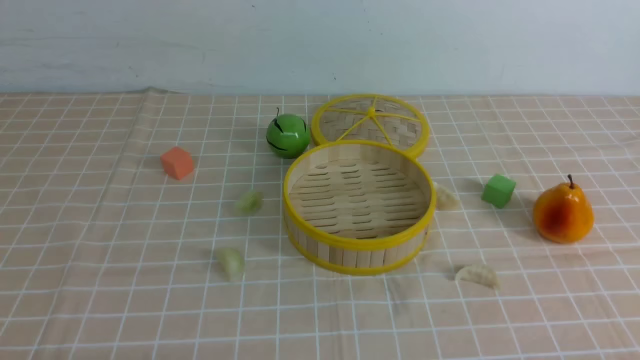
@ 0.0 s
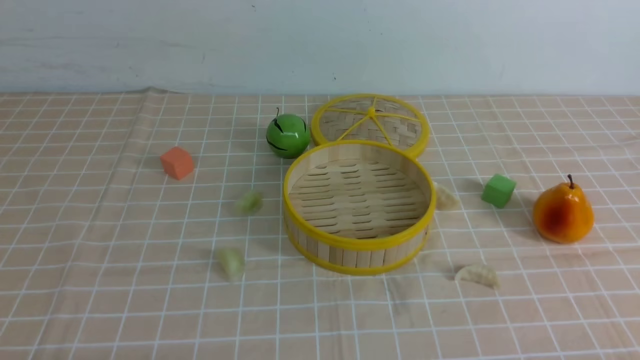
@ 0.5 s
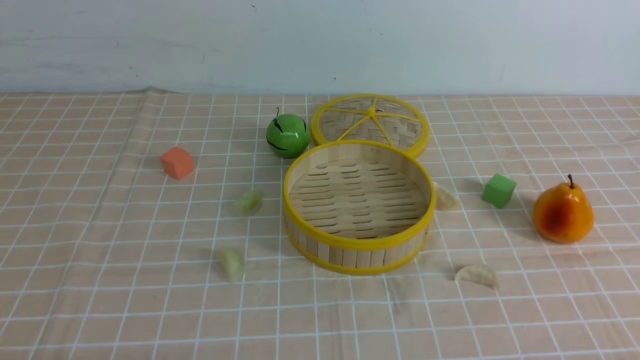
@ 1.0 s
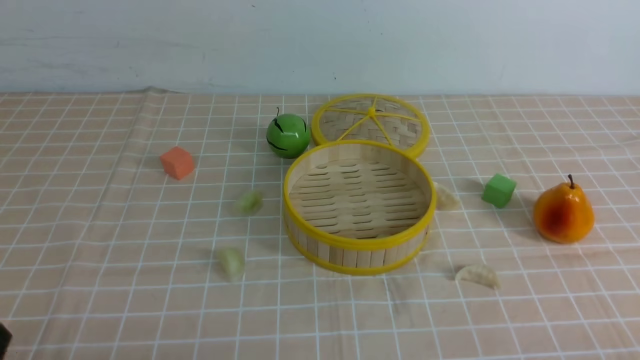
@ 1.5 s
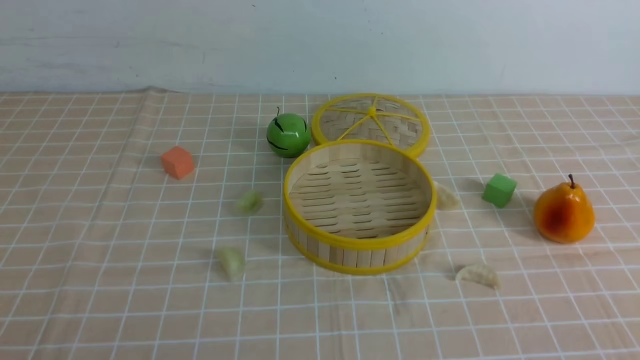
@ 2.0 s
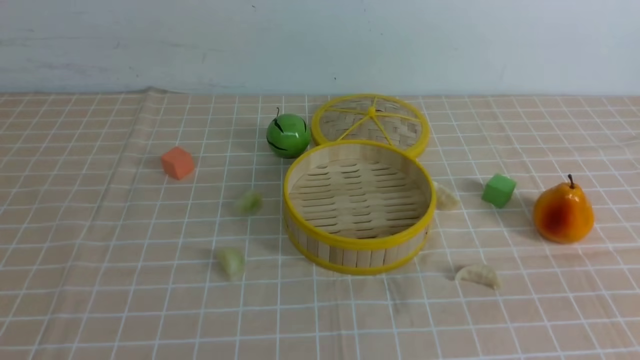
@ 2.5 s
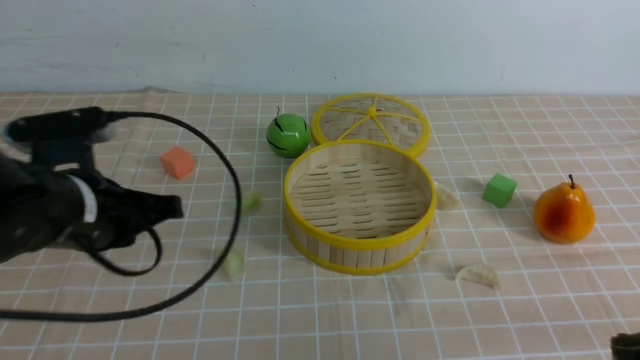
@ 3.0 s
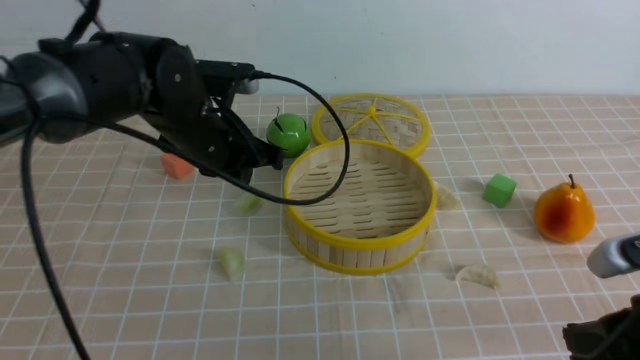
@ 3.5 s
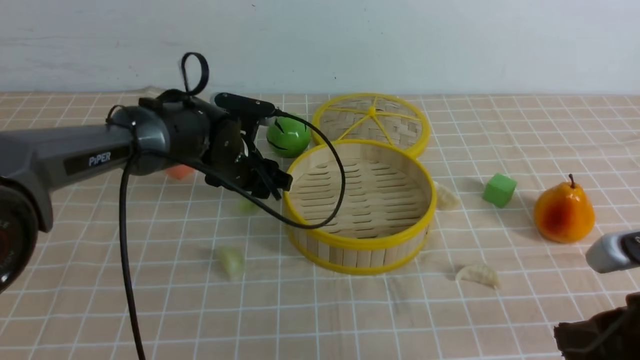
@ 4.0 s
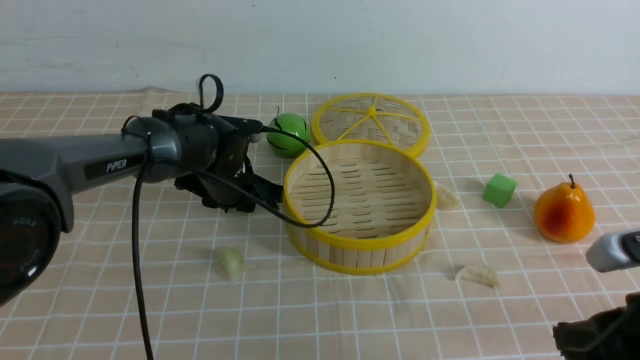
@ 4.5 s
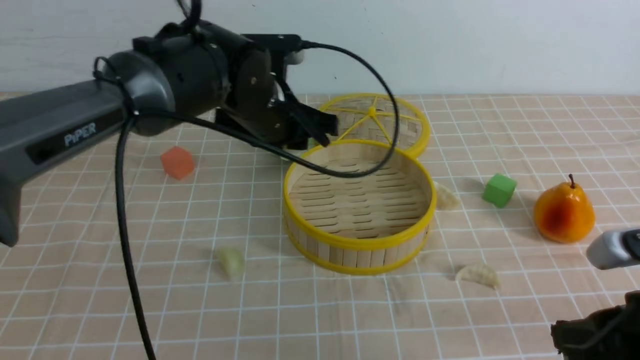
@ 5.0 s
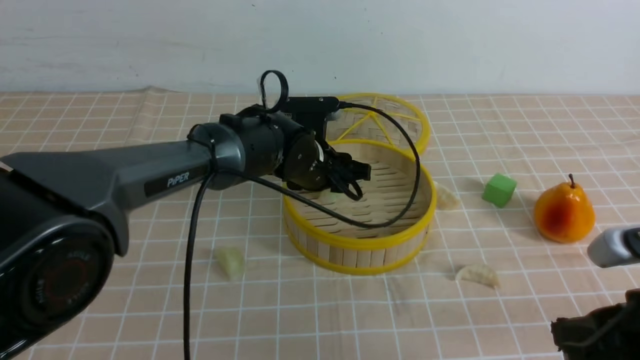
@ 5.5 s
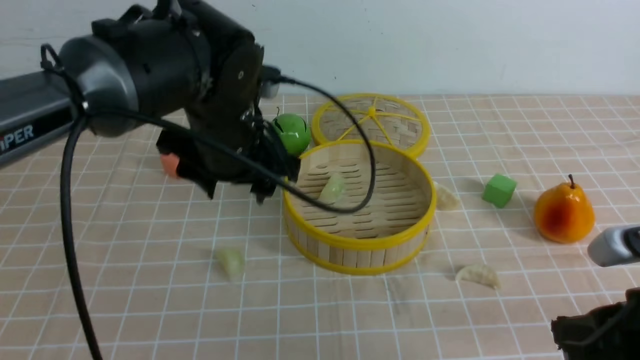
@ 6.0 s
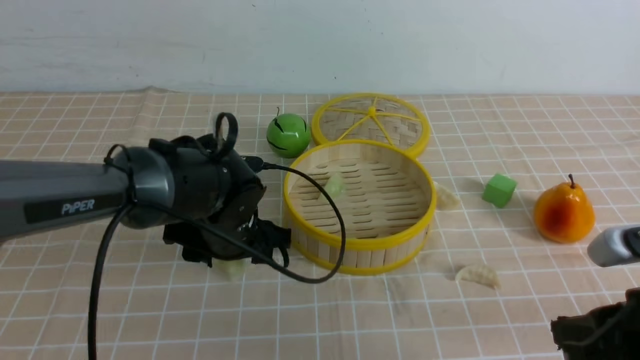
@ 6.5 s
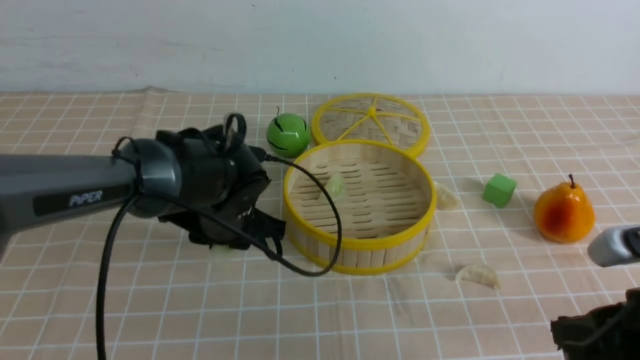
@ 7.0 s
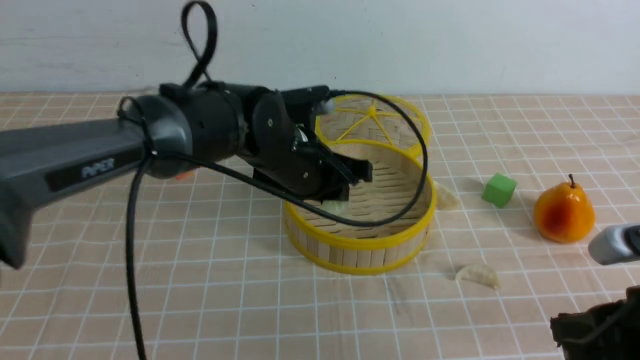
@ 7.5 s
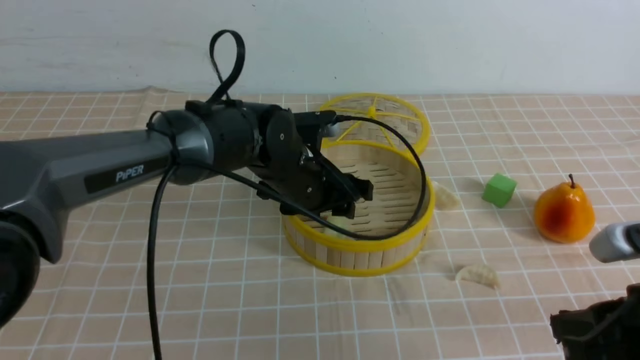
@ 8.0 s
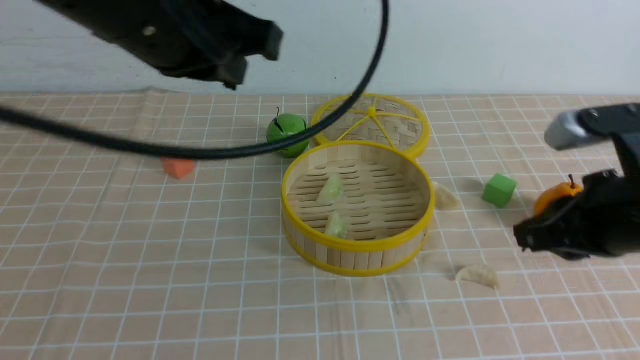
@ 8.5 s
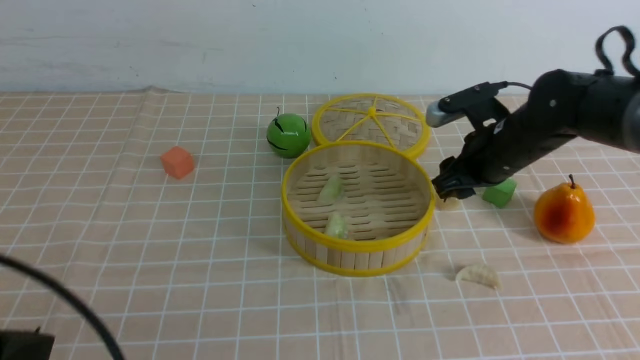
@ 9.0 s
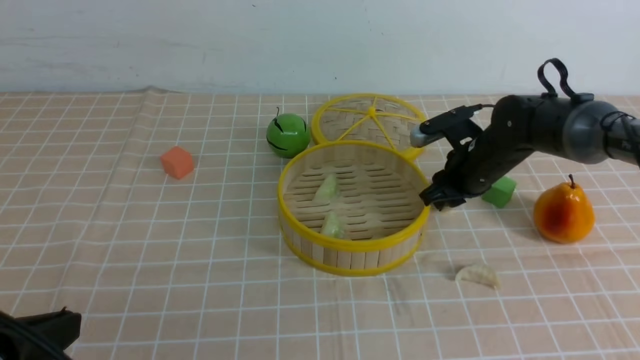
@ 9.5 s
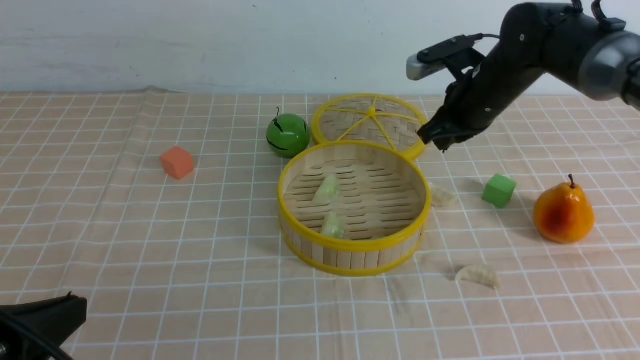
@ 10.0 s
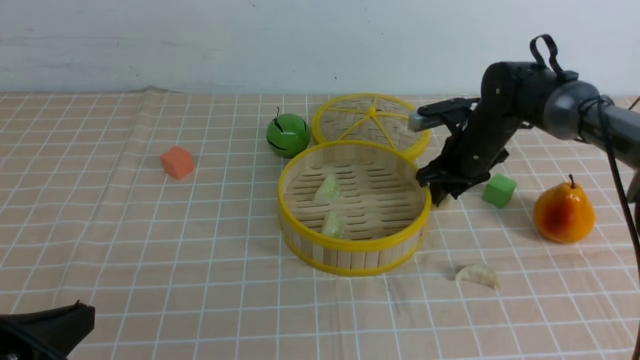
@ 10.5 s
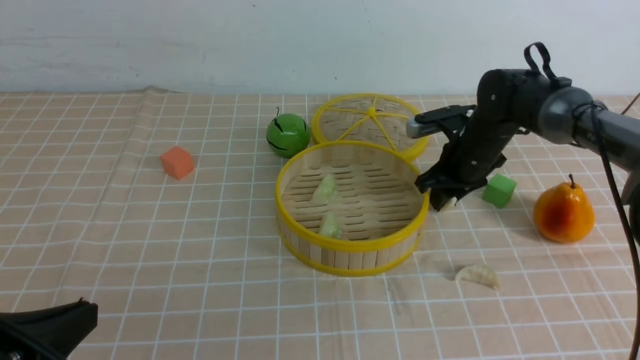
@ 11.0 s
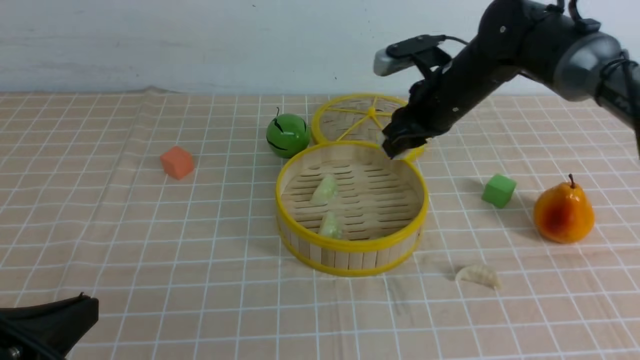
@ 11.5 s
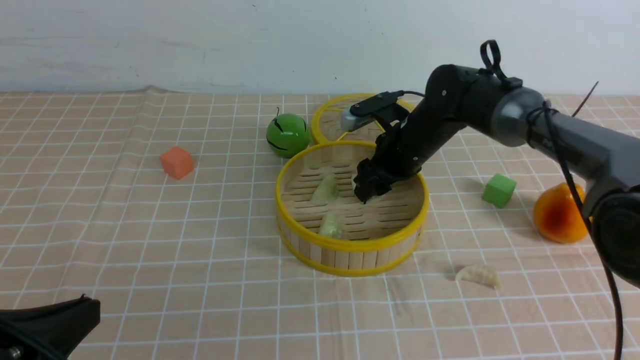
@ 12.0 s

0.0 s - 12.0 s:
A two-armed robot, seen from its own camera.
Task of the whole recording: put the dumplings into the steamer on the table with the brown tablecloth.
Step, 0.0 s - 4.0 s: use the left arm to grab a dumpling.
Step, 4.5 s - 5.5 s: use the left arm to put the dumpling into the steamer.
Step, 6.0 s - 6.5 s: use the left arm to grab a dumpling.
Step, 7.0 s - 8.0 s: use the left arm to put the dumpling into the steamer.
Step, 8.5 s - 10.5 s: use the right arm to grab a dumpling.
2.0 s - 4.0 s: The left gripper travels forward by approximately 40 cm, and opens up. Meanwhile the right gripper heads forward and to the left, covering roughly 15 cm.
4.0 s - 6.0 s: The left gripper goes approximately 10 cm backward and upward, and goes to the right and returns, some 10 cm each way.
6.0 s - 8.0 s: The left gripper moves about 10 cm downward and comes back.
8.0 s - 10.0 s: The right gripper heads forward, covering about 30 cm, and opens and closes again; the left gripper is displaced backward and to the left by some 35 cm, and closes.
10.0 s - 12.0 s: The right gripper goes about 5 cm to the left, and opens its fingers.

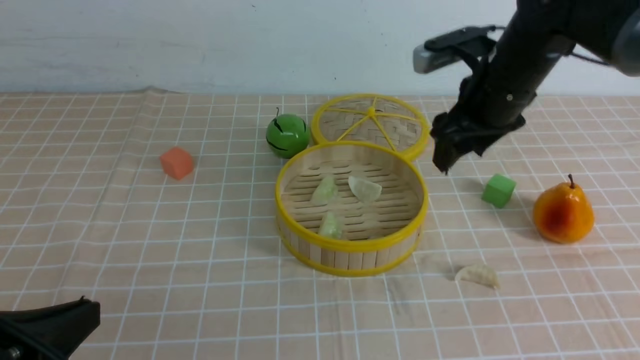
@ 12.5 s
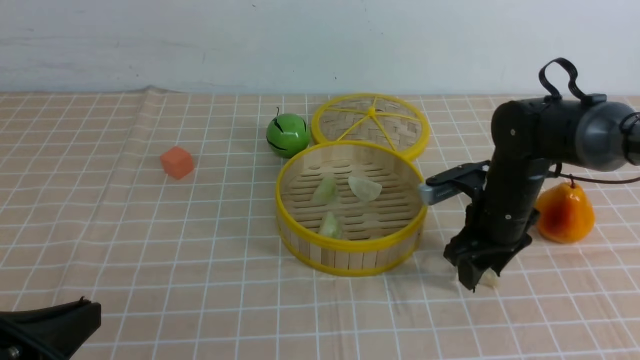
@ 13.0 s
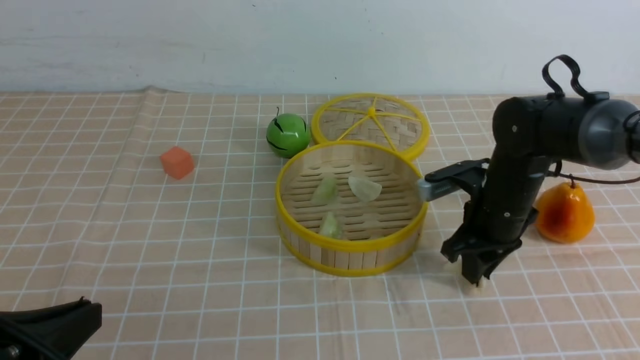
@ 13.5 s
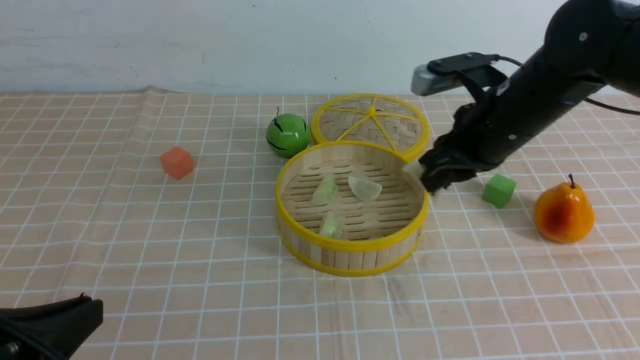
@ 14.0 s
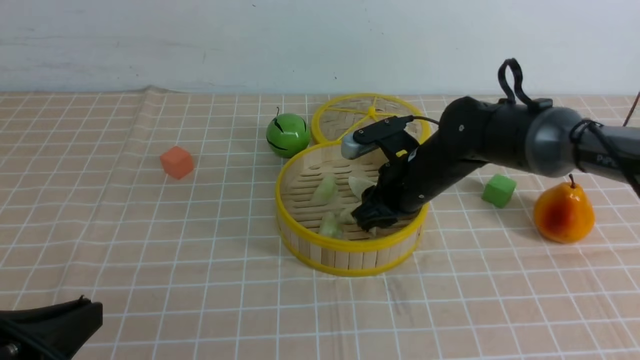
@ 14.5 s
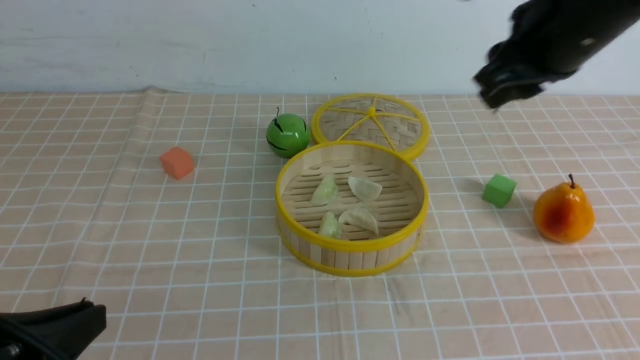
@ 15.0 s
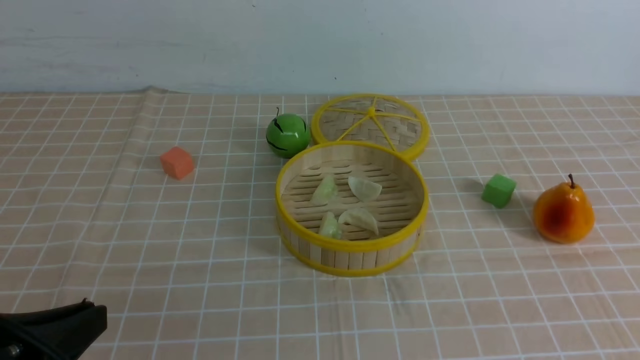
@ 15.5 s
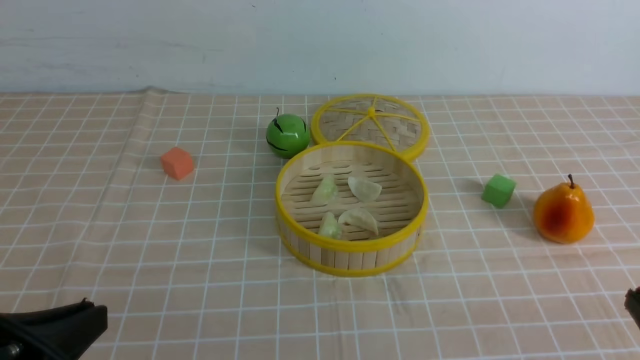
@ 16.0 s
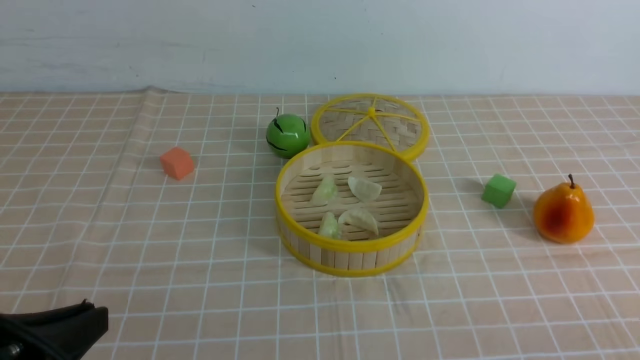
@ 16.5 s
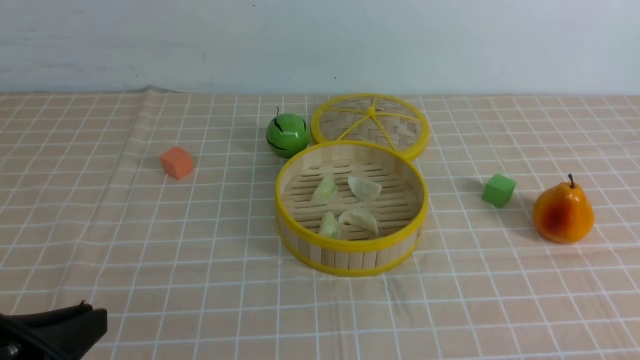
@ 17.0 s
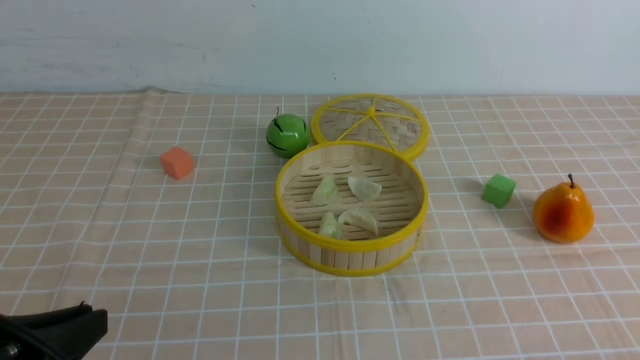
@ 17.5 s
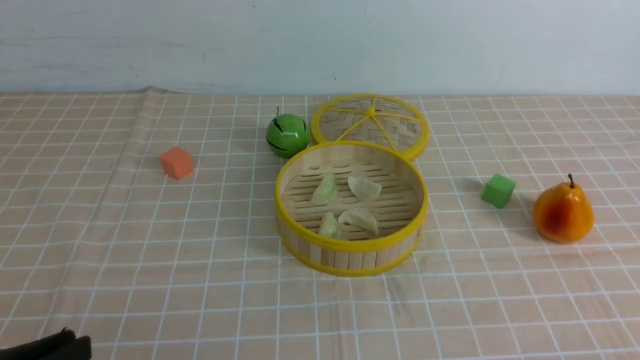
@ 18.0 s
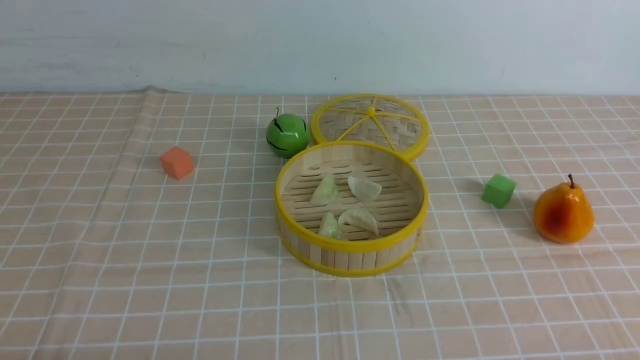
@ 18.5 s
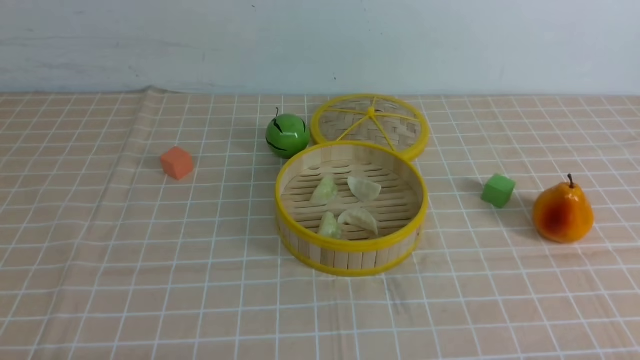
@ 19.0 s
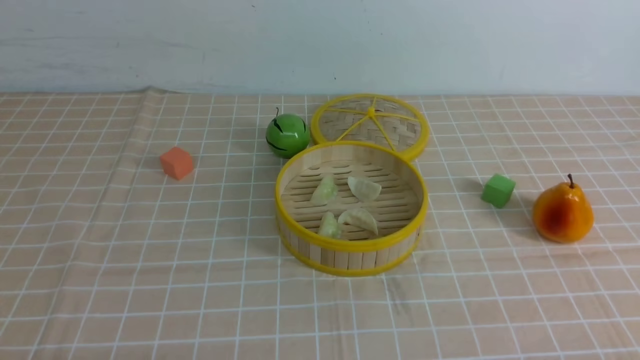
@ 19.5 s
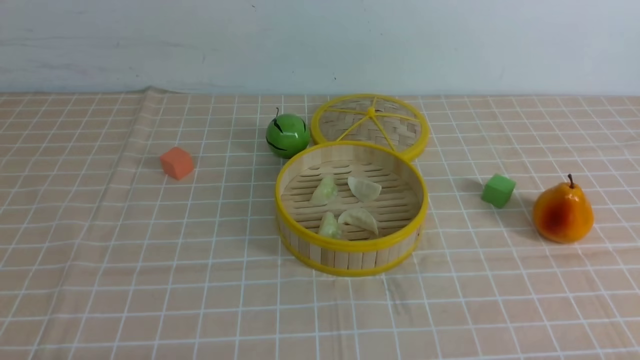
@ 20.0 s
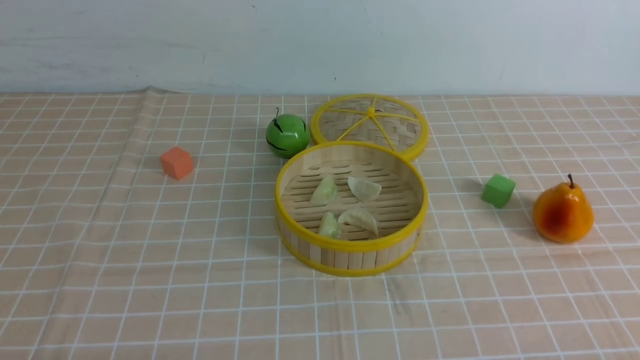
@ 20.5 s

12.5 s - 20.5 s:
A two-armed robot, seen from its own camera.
Task of the whole recording: put the dumplings into the steamer on the table with the brown tablecloth.
Step, 12.5 s - 13.0 s: use the right arm to grab a dumpling.
Step, 13.5 s - 14.5 s: use the right arm to put the dumpling into the steamer.
12.5 s - 14.5 s: The right gripper moves up and down over roughly 10 cm, changing direction 2 times, and closes its fingers.
14.5 s - 16.5 s: The right gripper heads backward and to the right, covering roughly 40 cm, and closes up.
16.5 s - 18.5 s: The left gripper shifts approximately 10 cm downward.
